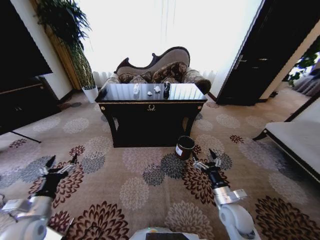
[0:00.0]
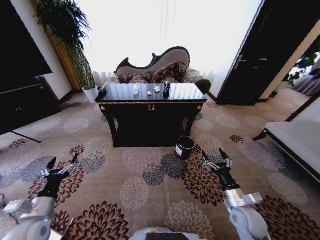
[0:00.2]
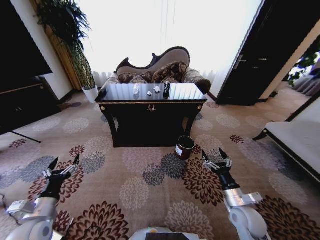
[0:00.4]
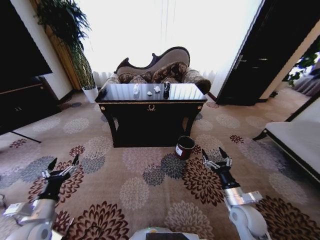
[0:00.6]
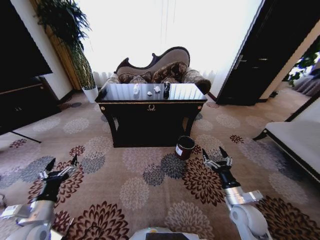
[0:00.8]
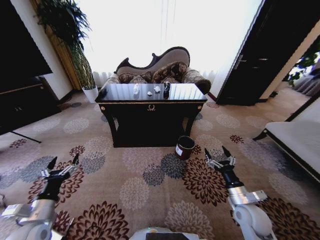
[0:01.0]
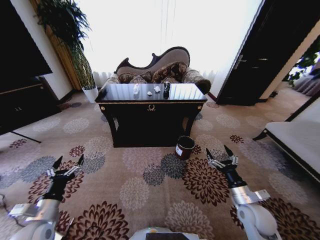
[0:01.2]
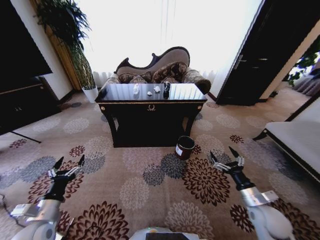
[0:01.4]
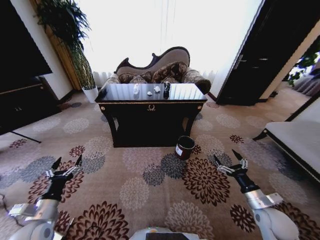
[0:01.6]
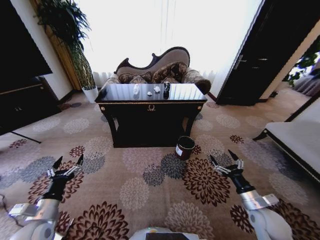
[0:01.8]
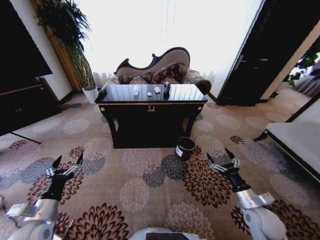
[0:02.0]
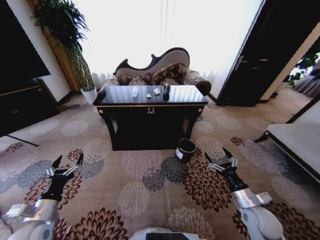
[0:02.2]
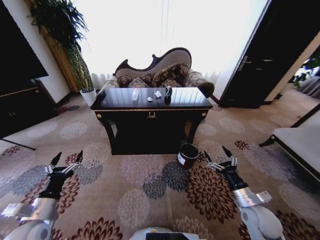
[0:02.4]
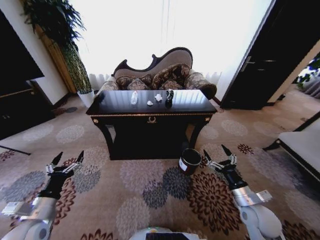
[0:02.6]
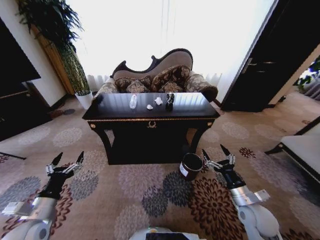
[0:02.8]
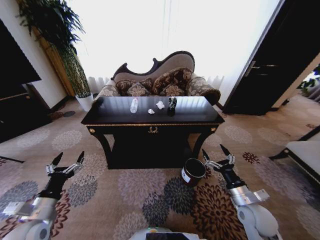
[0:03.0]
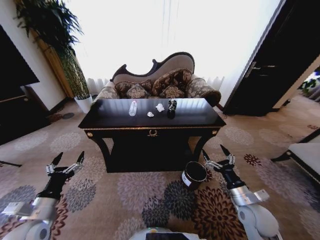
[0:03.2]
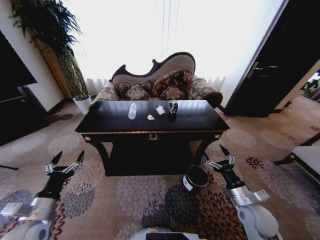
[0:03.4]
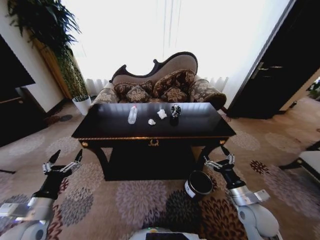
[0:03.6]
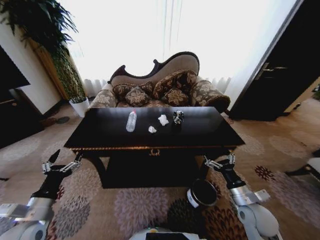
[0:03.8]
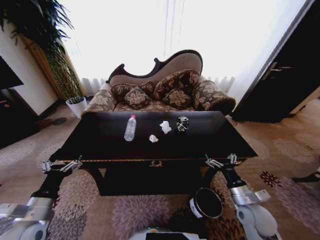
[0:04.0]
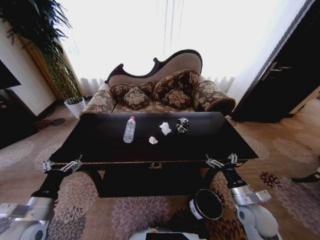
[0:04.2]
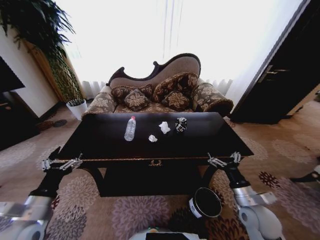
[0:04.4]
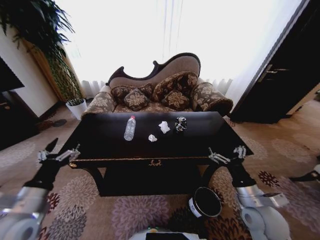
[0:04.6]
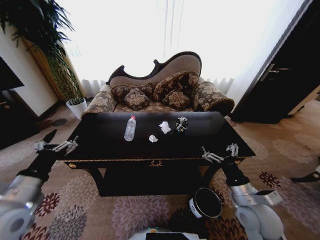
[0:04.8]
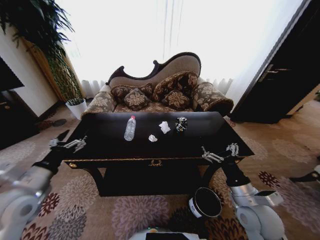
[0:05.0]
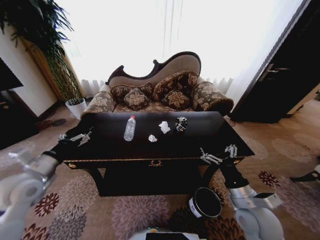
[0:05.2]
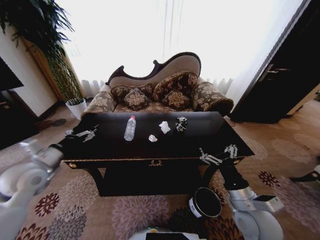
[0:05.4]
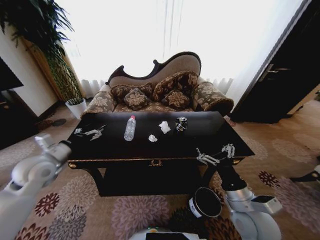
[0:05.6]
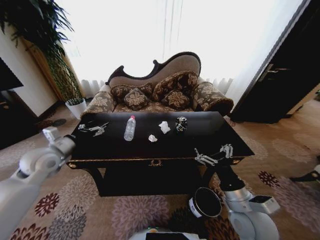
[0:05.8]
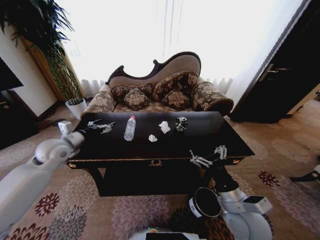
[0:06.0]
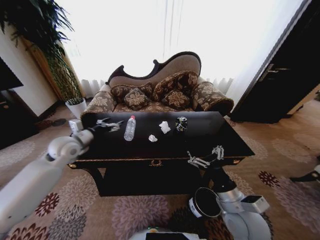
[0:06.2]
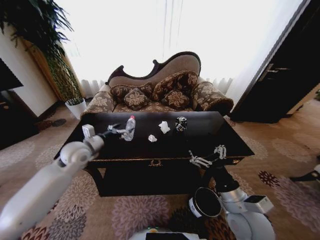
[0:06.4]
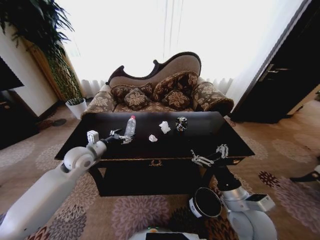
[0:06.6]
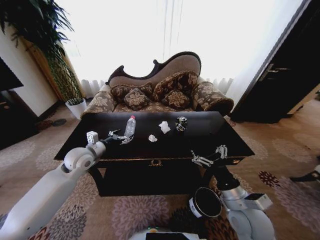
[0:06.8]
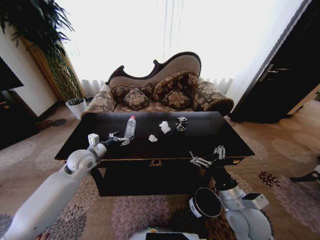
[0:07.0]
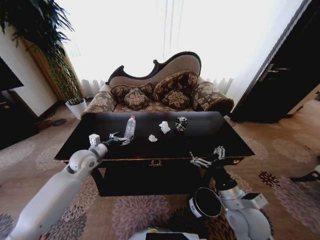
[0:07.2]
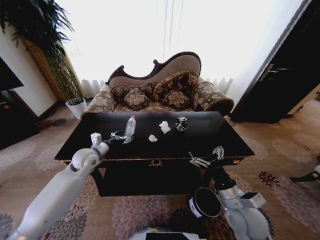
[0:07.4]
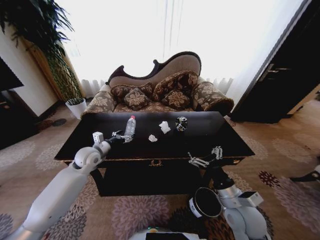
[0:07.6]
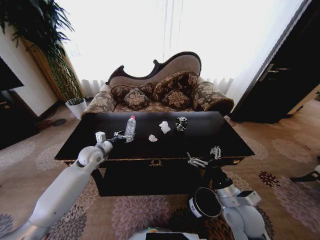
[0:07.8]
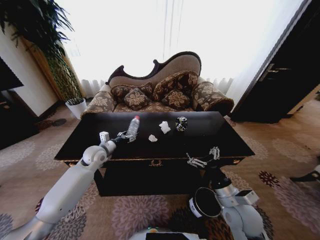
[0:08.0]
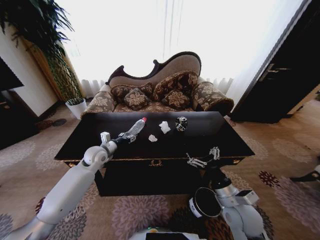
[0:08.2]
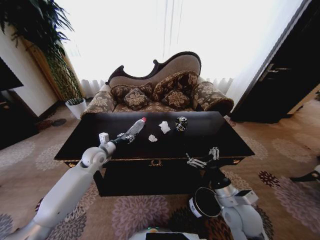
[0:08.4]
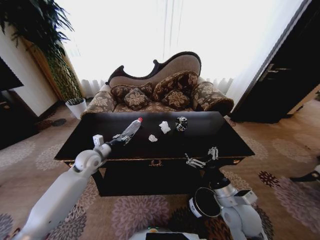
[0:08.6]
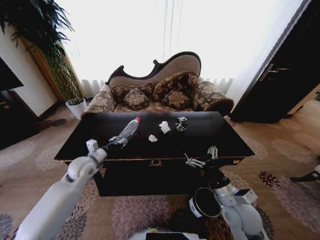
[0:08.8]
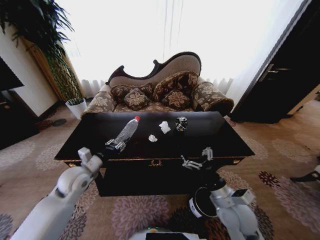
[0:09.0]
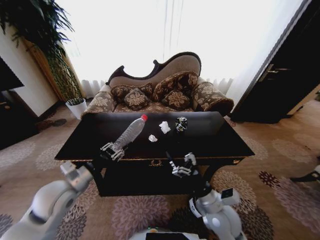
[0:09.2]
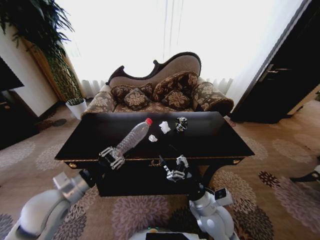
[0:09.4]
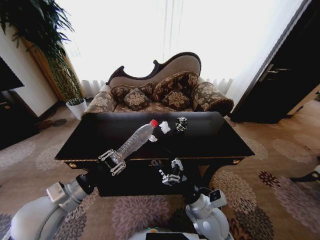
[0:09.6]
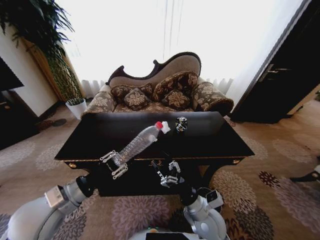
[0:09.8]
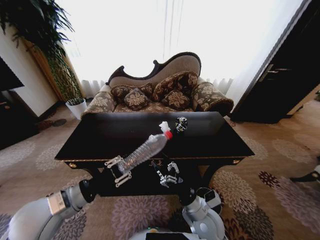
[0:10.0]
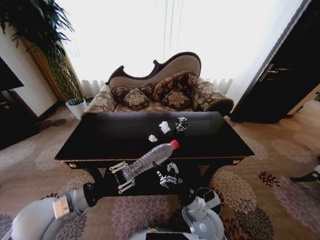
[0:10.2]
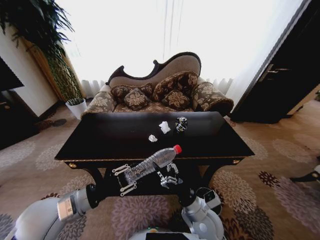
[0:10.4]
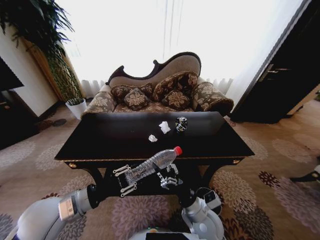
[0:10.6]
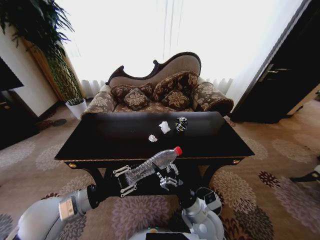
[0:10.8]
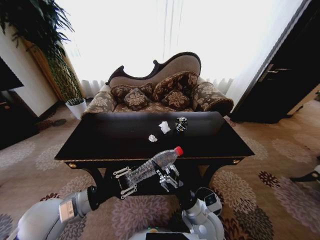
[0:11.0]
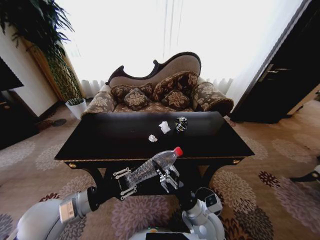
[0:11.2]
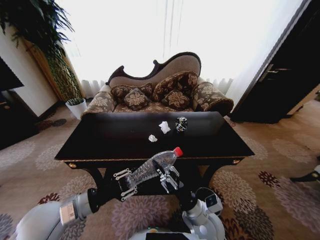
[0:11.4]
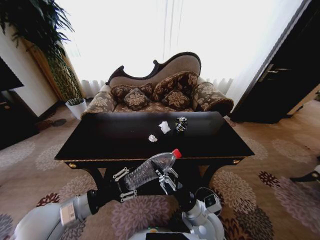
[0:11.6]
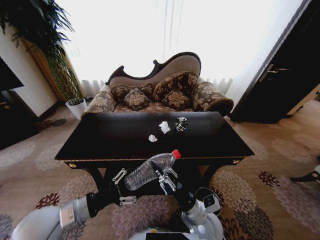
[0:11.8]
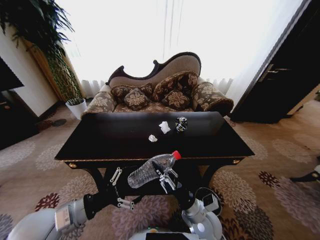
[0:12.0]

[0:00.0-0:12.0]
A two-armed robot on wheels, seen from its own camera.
Task of the whole recording: Move to the front of the table and place the trash on the table into the trash bin.
0:01.6 to 0:03.0: The right gripper shifts about 5 cm to the left.
0:04.4 to 0:06.0: The right gripper moves to the left and upward, roughly 10 cm; the left gripper heads forward, covering approximately 25 cm.
0:06.0 to 0:07.6: The left gripper is displaced to the right and downward by roughly 10 cm.
0:07.6 to 0:09.0: The left gripper is displaced backward by some 10 cm, and closes its fingers.
0:09.0 to 0:10.4: The right gripper moves to the left, approximately 10 cm. Meanwhile the left gripper travels backward by approximately 10 cm.
0:10.4 to 0:12.0: The right gripper closes its fingers; the left gripper opens up.

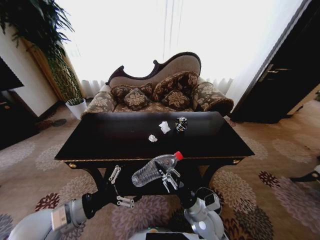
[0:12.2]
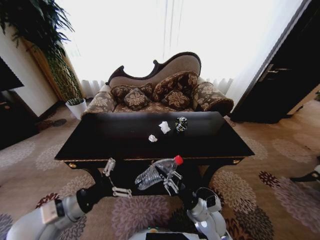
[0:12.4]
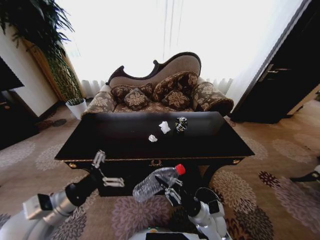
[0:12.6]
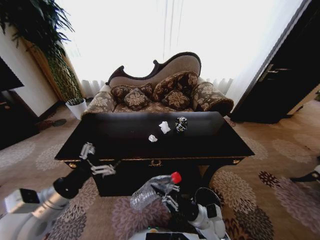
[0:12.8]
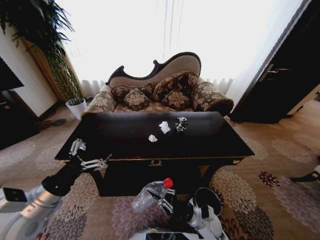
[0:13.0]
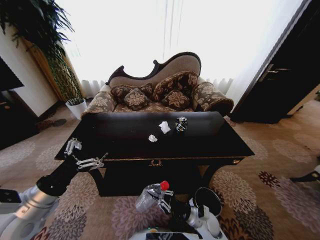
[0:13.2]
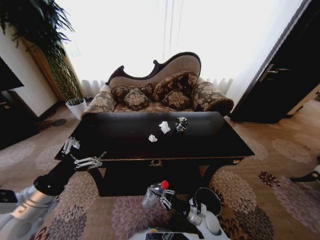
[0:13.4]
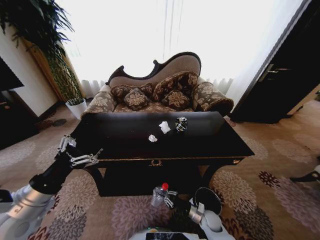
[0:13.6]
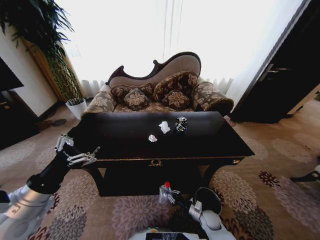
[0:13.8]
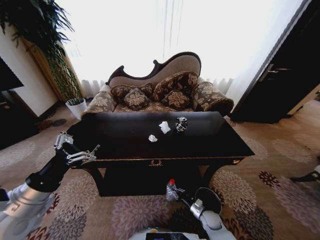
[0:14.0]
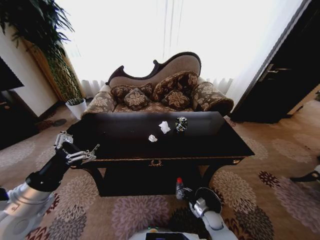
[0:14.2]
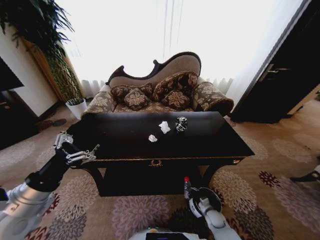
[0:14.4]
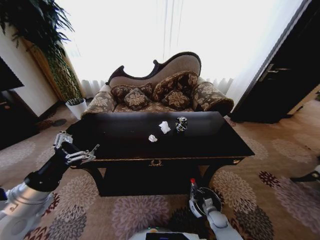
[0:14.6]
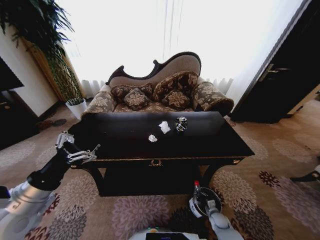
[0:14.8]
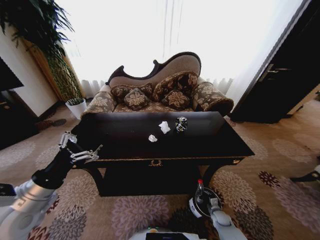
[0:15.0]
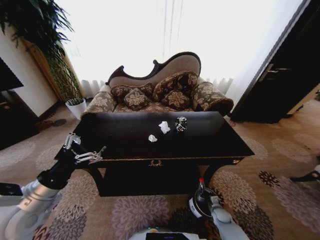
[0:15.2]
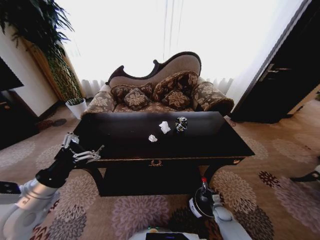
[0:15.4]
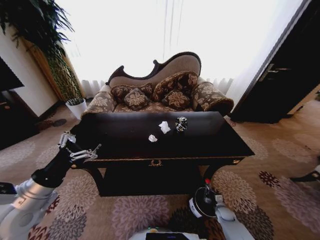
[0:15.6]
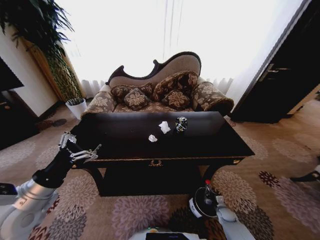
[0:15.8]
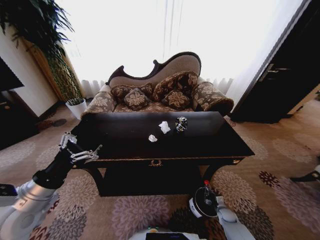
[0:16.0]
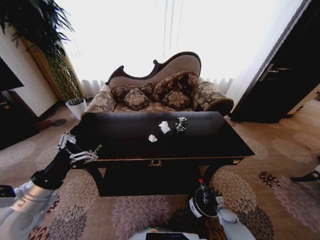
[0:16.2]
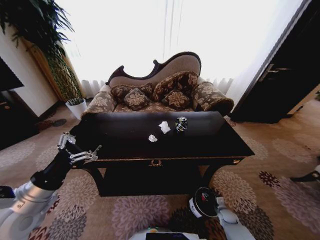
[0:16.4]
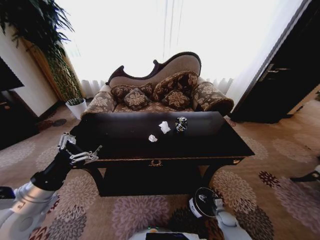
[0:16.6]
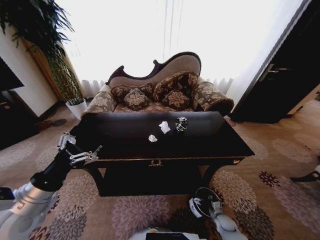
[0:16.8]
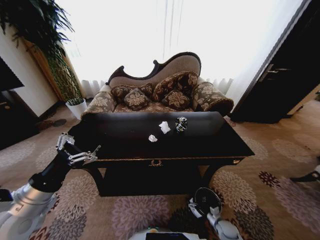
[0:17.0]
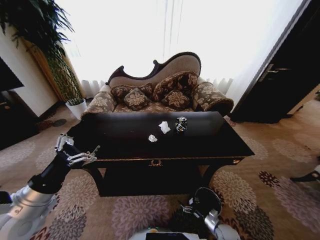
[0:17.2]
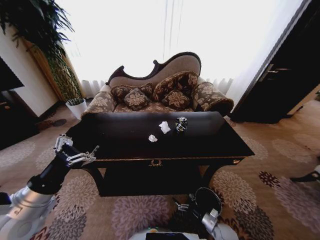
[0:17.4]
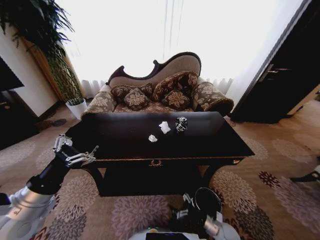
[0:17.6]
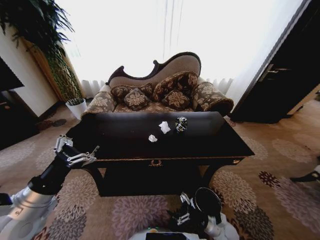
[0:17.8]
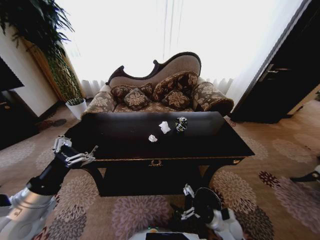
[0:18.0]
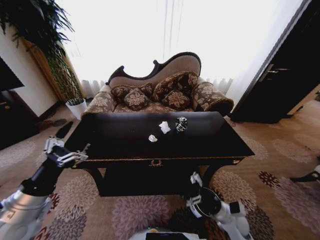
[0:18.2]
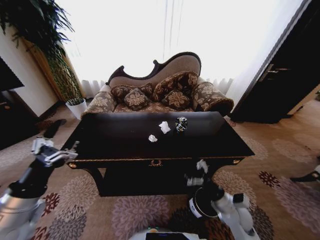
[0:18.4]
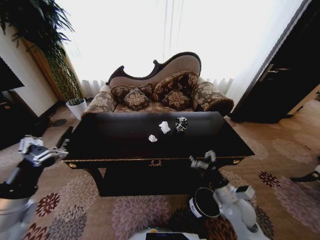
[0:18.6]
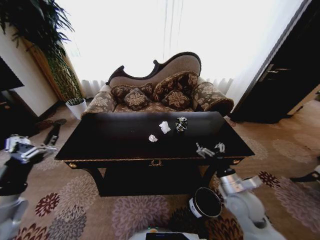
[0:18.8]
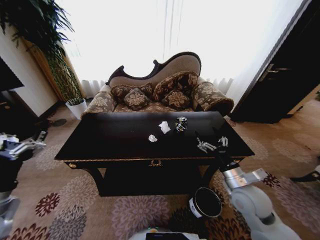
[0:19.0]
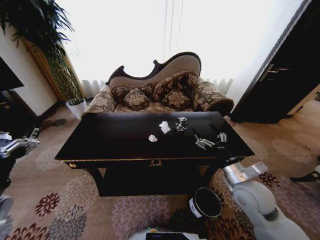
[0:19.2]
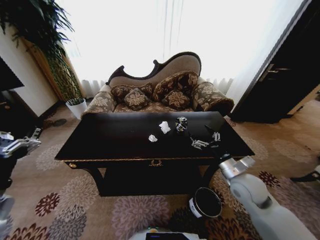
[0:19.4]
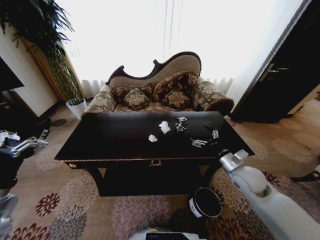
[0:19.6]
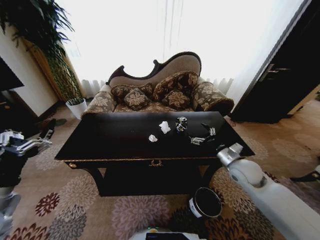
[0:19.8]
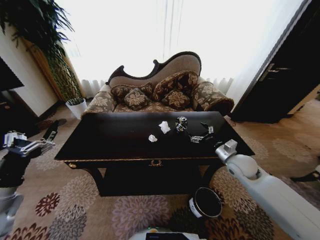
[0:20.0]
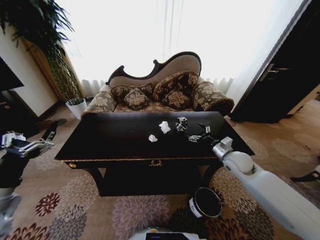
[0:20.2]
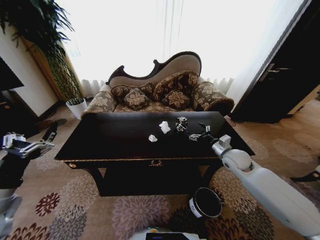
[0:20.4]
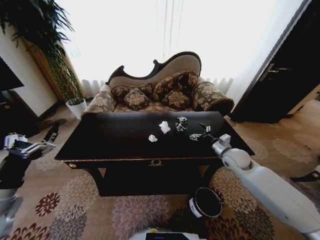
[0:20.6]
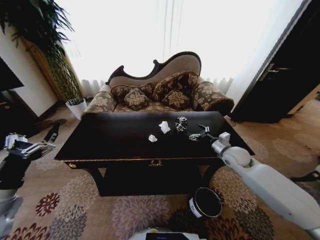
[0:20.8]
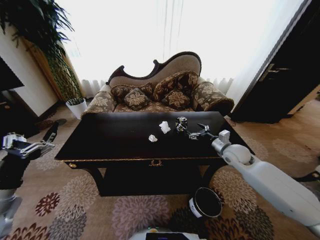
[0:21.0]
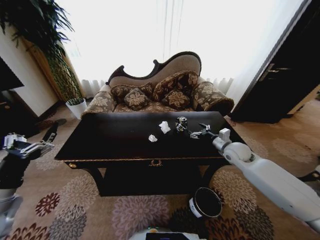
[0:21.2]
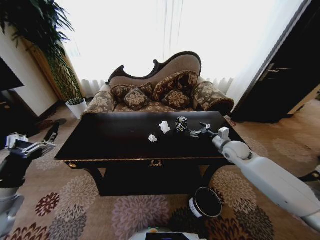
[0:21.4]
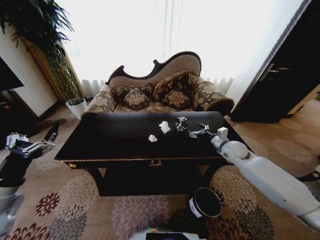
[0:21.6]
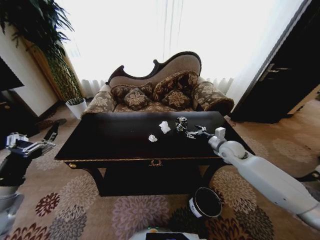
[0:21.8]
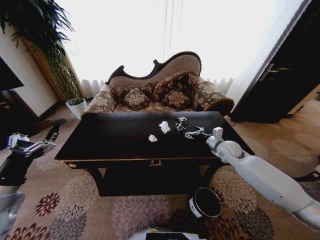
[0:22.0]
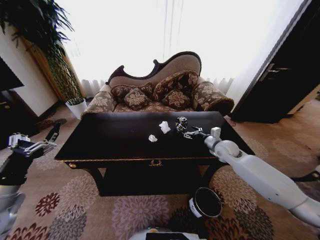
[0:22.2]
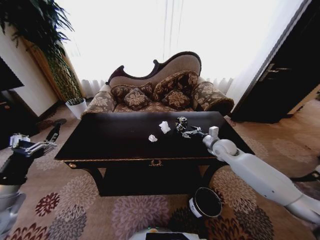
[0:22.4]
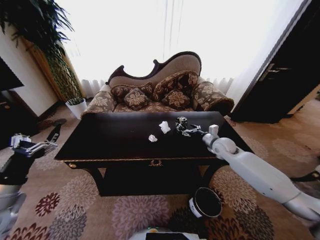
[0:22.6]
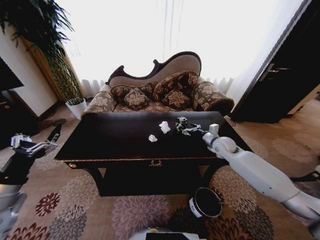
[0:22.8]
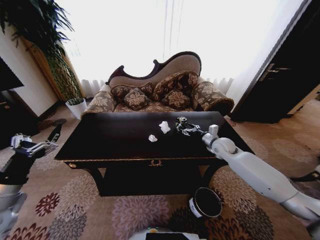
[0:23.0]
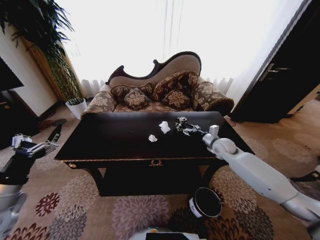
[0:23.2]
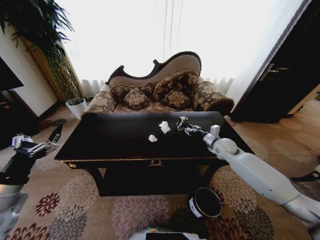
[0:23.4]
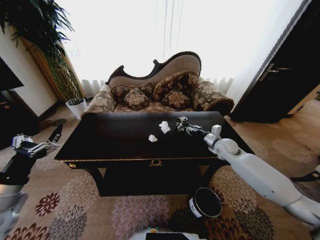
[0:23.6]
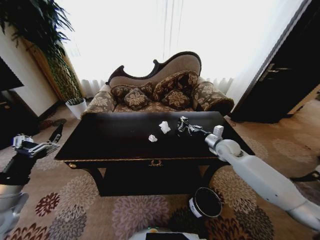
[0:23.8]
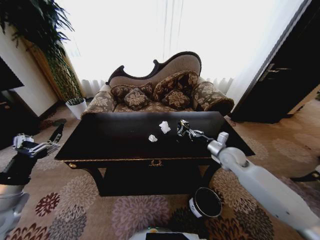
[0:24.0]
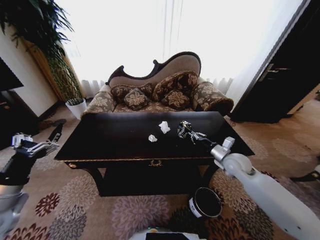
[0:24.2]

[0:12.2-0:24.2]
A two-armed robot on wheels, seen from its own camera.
Task of the whole recording: Move to the front of the table and place the trash on the table into the trash bin.
0:12.2 to 0:13.8: The left gripper moves roughly 5 cm. Meanwhile the right gripper shifts some 20 cm downward and to the right.
0:13.8 to 0:15.2: The right gripper is displaced to the right and downward by approximately 10 cm.
0:15.2 to 0:16.6: The right gripper opens its fingers.
0:16.6 to 0:18.2: The right gripper travels upward and to the left by about 25 cm.
0:18.2 to 0:19.8: The right gripper is displaced upward and forward by some 20 cm; the left gripper shifts roughly 5 cm to the left.
0:19.8 to 0:21.2: The right gripper travels forward by some 10 cm.
0:21.2 to 0:22.6: The right gripper shifts by about 5 cm.
0:22.6 to 0:24.2: The right gripper moves backward, approximately 10 cm, and closes.
